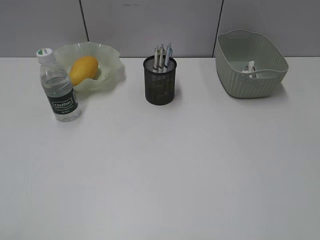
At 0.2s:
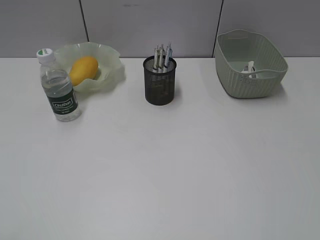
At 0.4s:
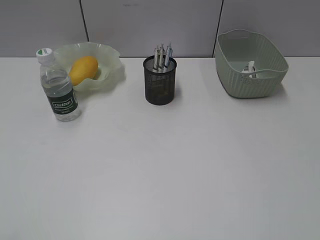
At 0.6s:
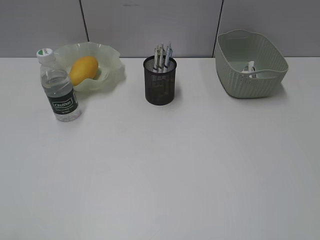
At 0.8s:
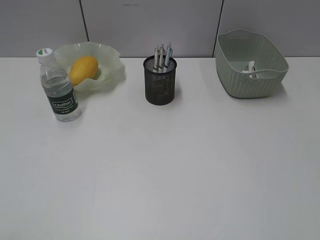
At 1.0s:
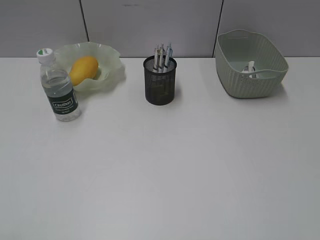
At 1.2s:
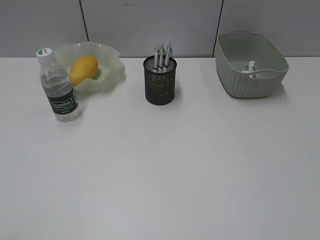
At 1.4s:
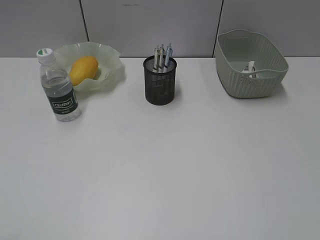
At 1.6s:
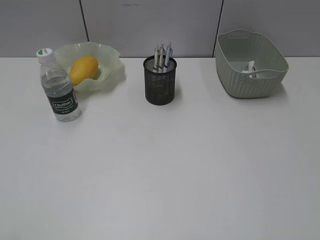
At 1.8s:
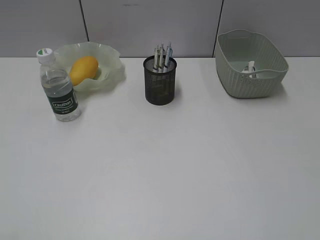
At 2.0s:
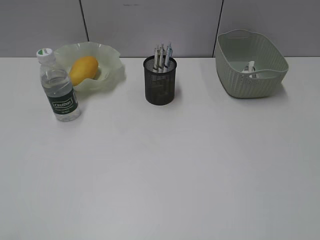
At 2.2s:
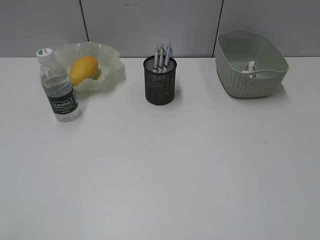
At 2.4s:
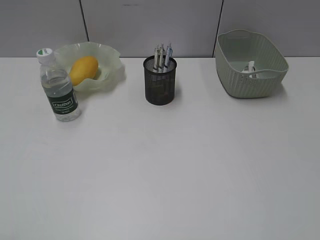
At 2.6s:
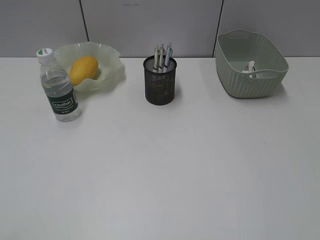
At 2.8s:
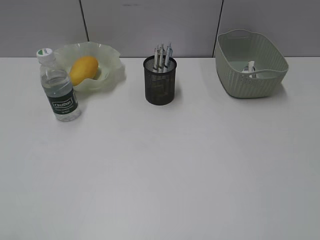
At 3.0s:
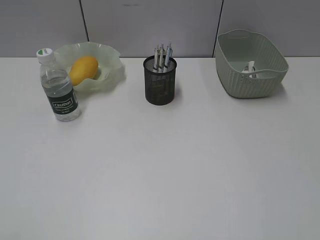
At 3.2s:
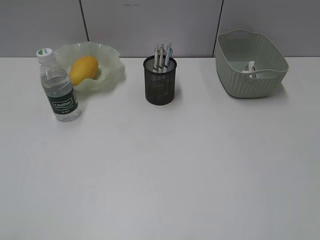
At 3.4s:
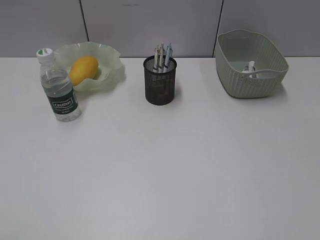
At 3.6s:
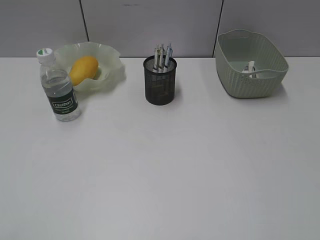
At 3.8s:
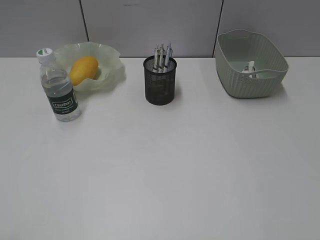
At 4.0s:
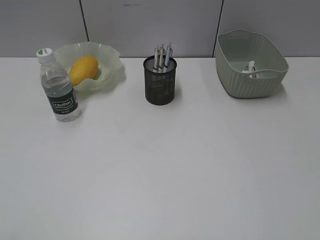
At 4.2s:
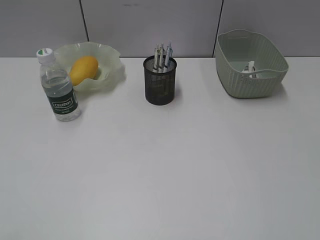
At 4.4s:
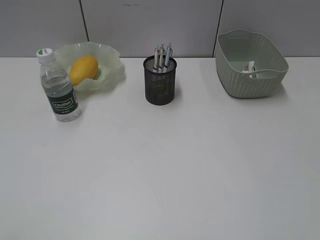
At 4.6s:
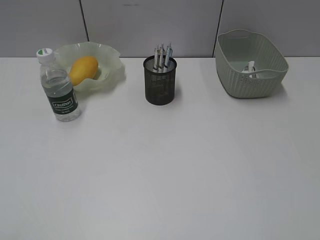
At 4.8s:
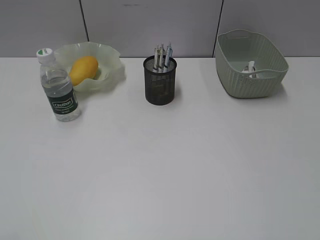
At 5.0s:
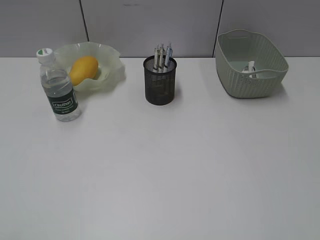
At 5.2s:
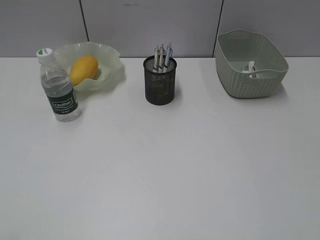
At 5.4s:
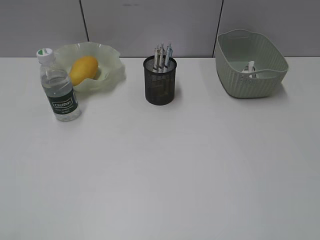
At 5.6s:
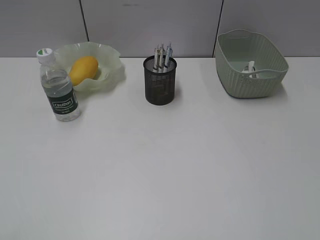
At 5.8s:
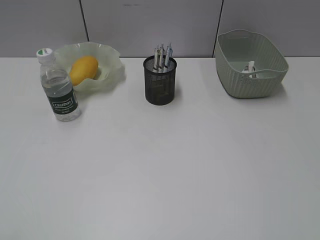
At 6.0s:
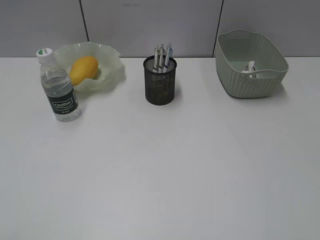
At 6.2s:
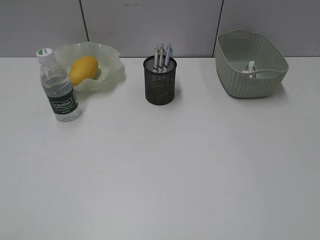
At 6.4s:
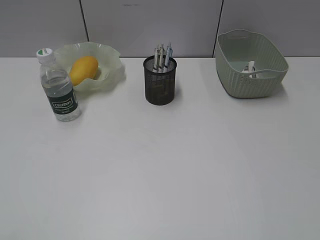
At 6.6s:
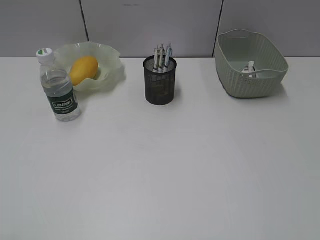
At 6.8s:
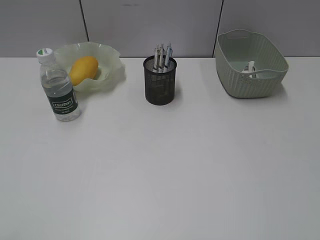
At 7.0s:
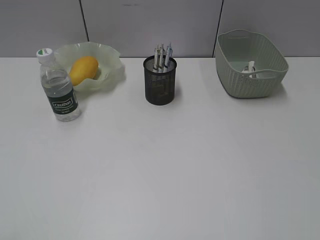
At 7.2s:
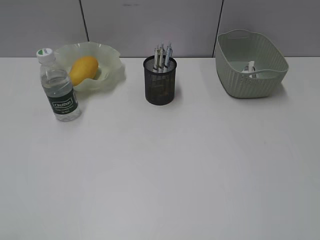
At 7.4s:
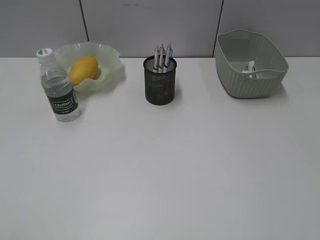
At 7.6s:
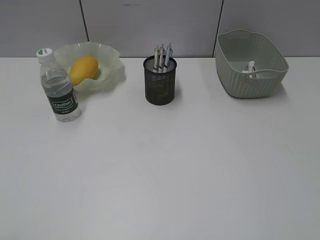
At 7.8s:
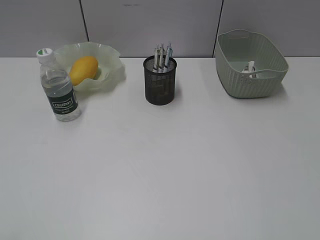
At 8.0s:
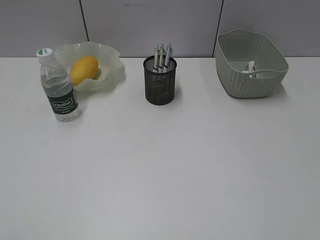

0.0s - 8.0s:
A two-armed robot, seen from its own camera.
1.6s - 8.0s: Both grippers stay put.

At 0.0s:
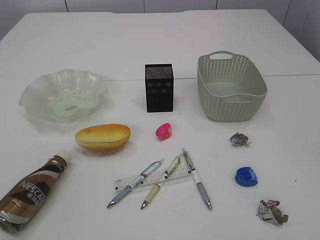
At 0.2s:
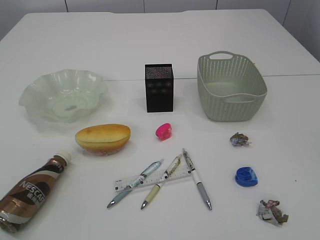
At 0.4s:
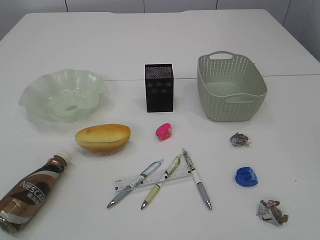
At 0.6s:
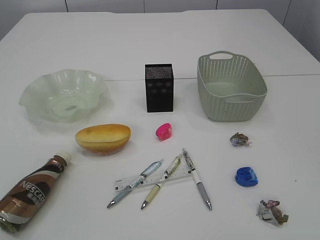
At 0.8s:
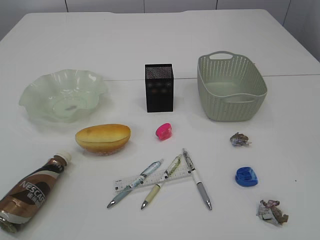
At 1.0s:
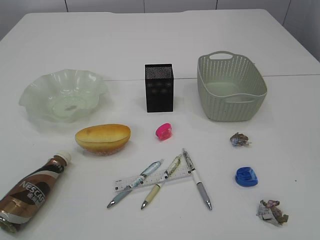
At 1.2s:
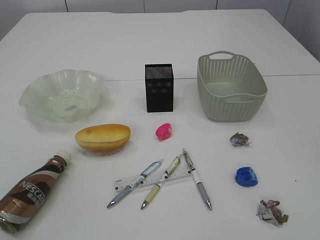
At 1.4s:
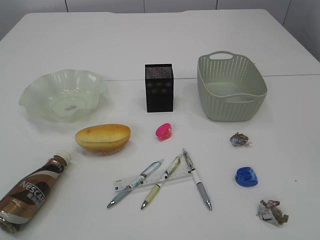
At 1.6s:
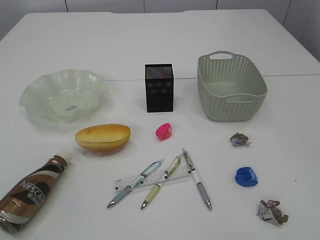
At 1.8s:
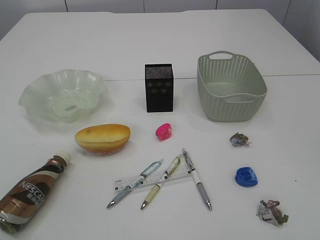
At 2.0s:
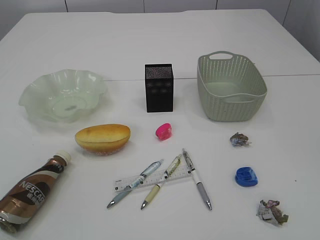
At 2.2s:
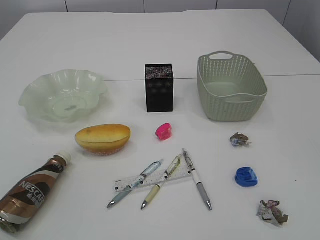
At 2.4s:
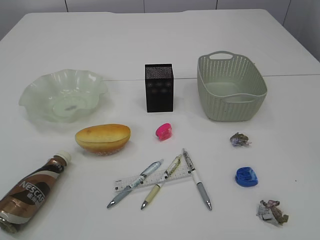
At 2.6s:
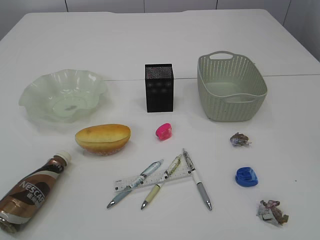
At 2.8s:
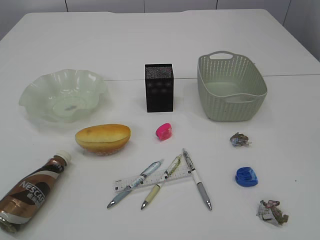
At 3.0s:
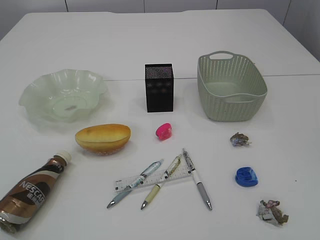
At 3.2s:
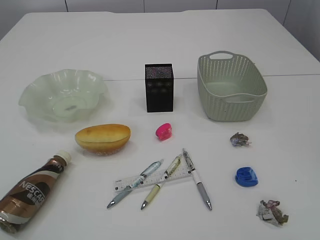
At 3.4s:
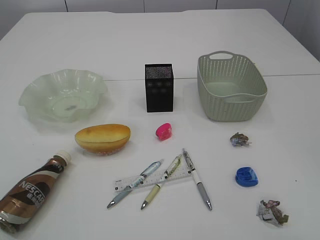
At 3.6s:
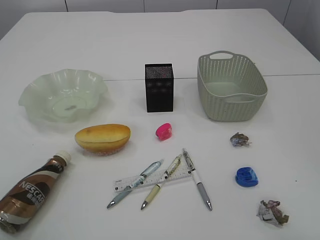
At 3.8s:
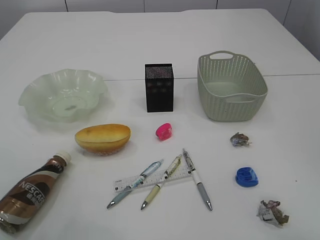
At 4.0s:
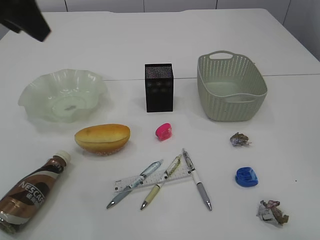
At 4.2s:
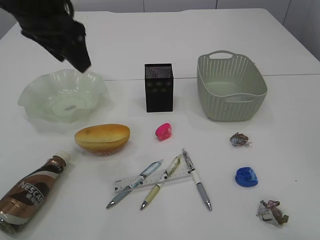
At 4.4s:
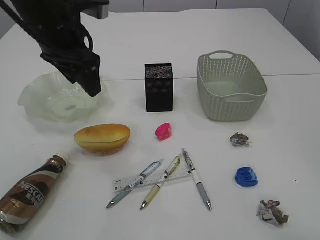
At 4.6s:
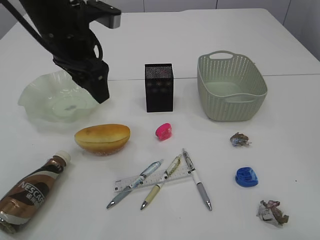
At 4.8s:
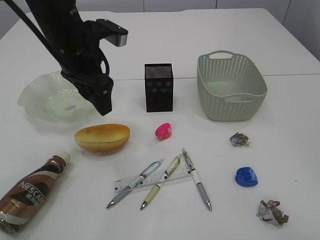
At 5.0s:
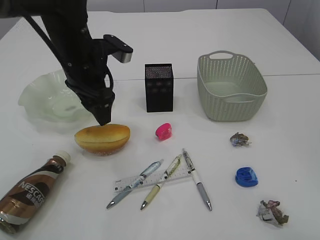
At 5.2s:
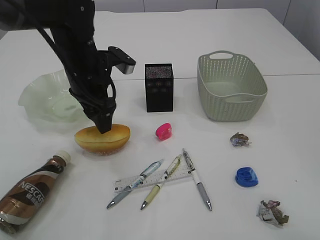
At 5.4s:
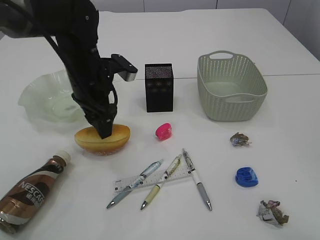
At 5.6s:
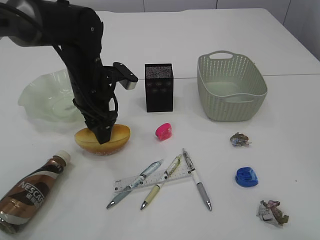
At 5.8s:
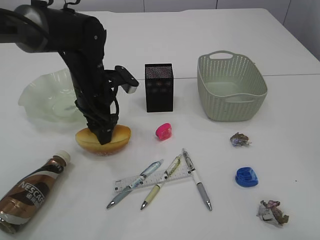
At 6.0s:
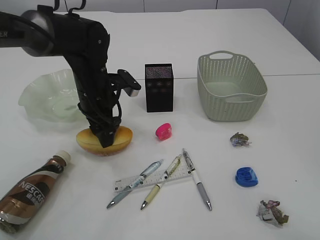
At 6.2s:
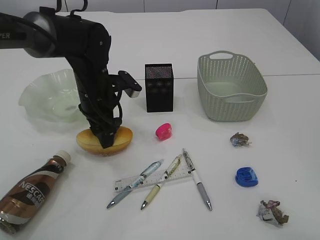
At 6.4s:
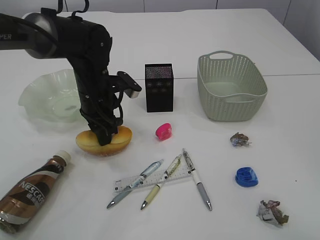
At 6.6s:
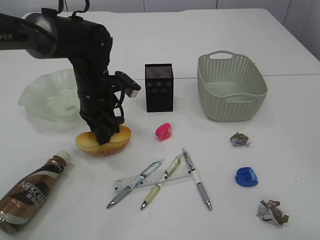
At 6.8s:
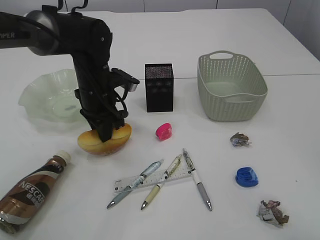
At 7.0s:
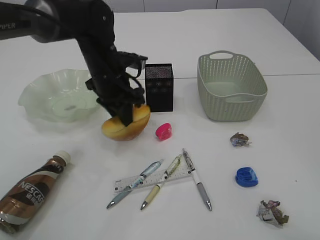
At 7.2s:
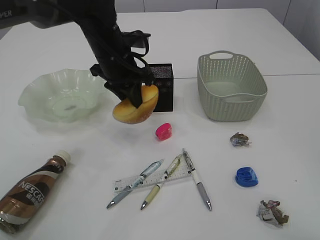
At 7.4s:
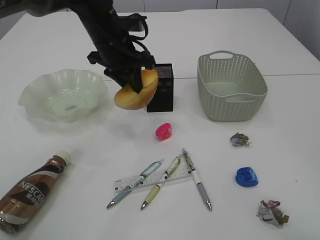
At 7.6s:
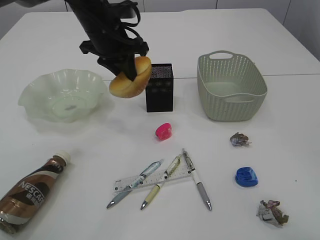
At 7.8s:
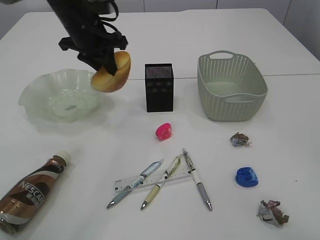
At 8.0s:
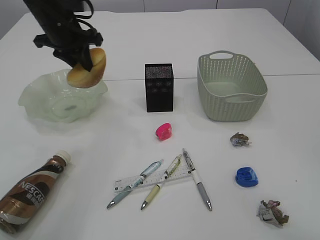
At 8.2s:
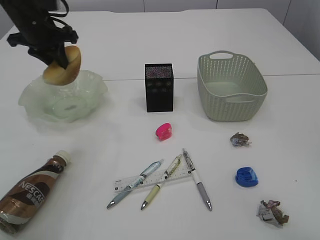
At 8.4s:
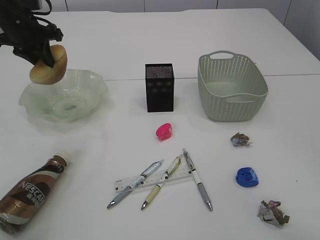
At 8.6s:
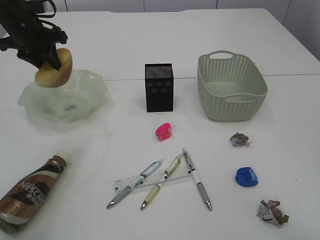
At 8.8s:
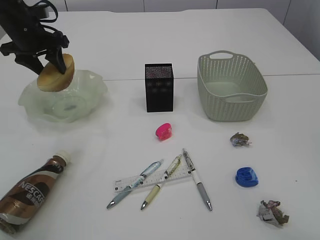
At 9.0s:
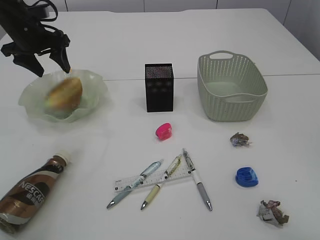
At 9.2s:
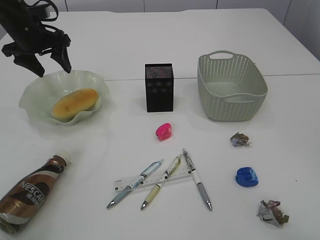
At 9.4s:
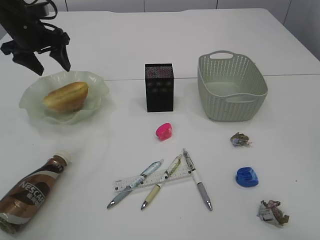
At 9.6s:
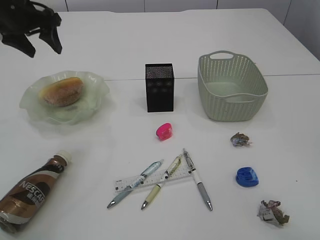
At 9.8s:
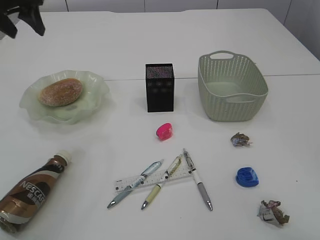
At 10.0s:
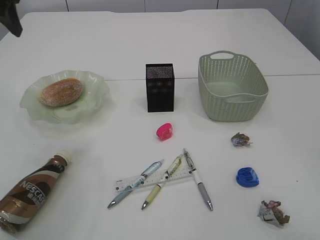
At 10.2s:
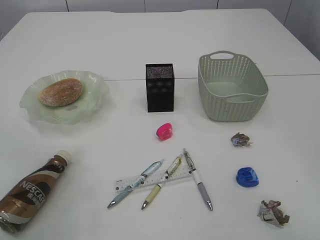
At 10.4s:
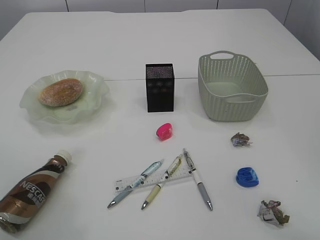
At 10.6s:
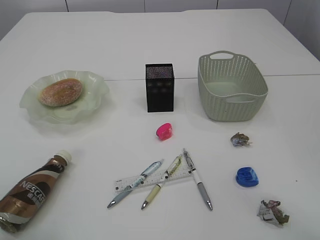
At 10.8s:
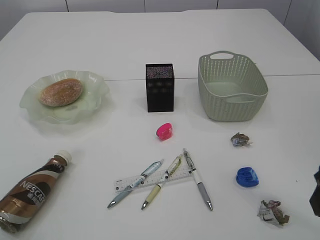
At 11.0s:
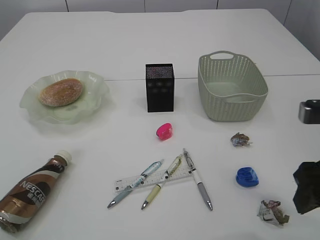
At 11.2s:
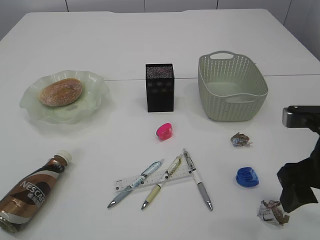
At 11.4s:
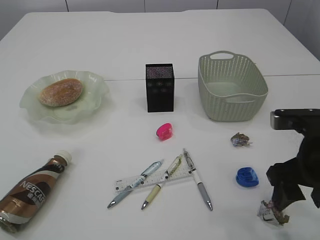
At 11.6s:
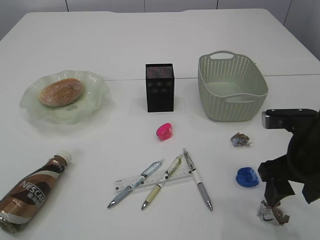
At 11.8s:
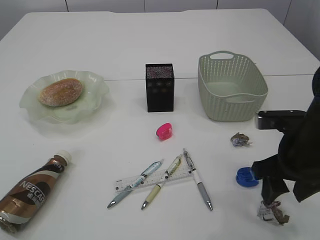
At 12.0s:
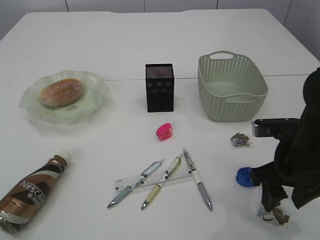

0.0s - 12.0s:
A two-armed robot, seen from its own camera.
Step, 7.2s - 9.6s: place the bread in the plate.
3.0s - 4.4s: The left gripper is displaced forward and to the right by about 40 cm.
4.4s - 6.0s: The left gripper goes about 15 cm downward.
6.0s - 7.6s: The left gripper shifts about 10 cm upward, and closes its fingers.
7.6s - 9.0s: The left gripper shifts approximately 15 cm to the left, and opens.
9.0s - 10.4s: The left gripper shifts some 25 cm backward and upward.
10.4s - 12.0s: The right gripper heads forward and downward, covering approximately 20 cm.

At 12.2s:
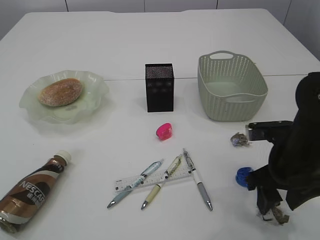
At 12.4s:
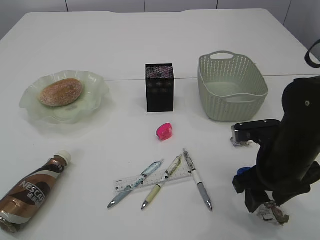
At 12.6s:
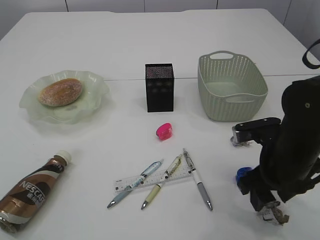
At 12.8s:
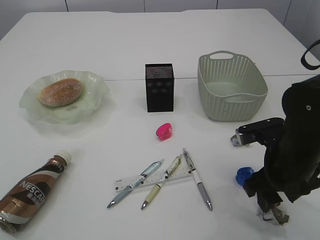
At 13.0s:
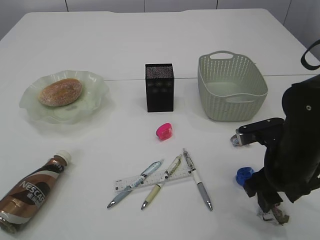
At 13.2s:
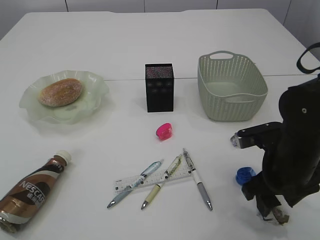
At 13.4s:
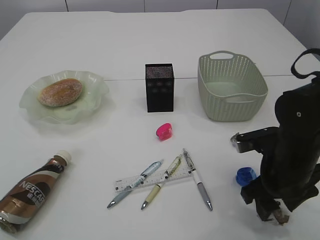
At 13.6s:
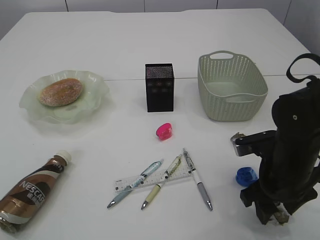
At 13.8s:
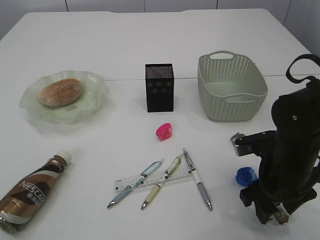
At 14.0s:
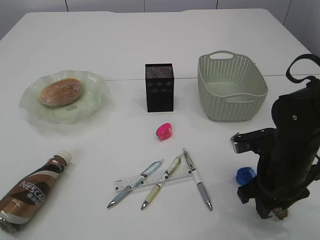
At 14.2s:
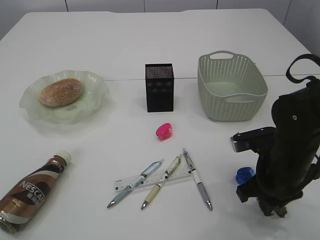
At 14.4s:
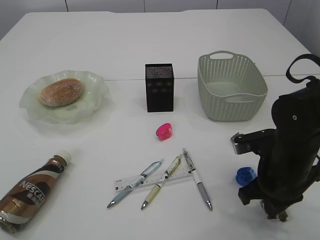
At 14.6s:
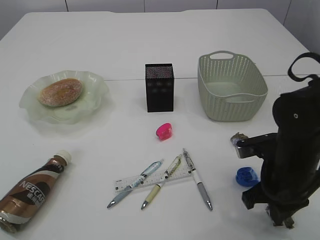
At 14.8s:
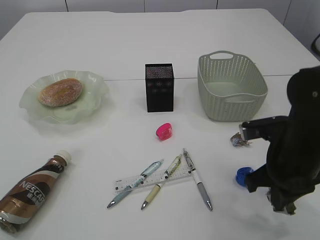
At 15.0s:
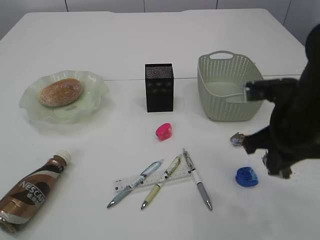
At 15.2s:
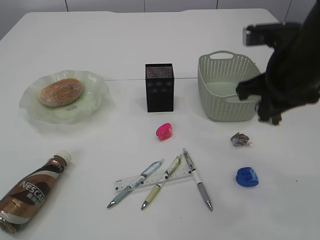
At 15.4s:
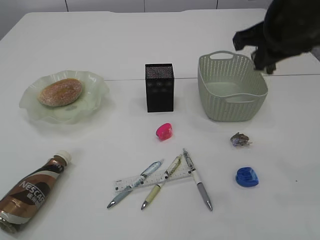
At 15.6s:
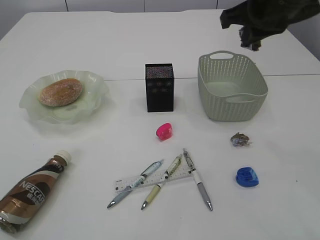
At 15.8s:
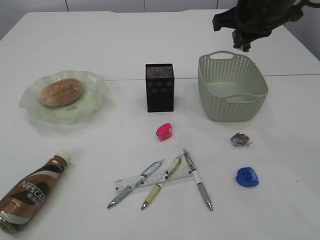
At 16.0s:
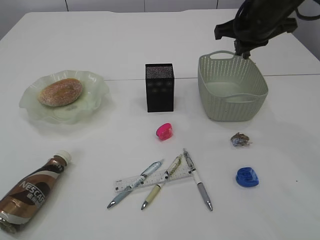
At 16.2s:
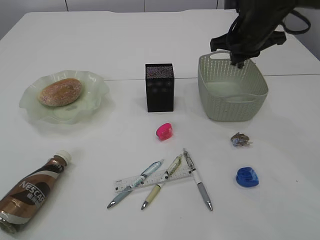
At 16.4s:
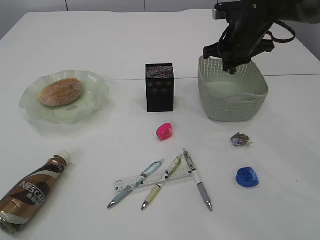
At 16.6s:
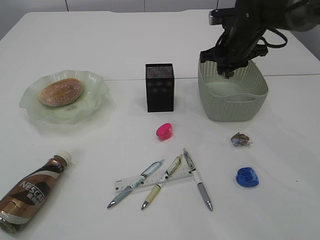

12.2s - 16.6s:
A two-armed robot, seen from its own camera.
Step, 12.2s - 14.8s: Pick up the waste paper.
12.2s - 13.6s: The grippers make only small movements.
13.6s - 15.2s: The right gripper is displaced upward by roughly 15 cm, and closes up.
15.2s - 16.6s: The right gripper moves forward, approximately 20 cm.
